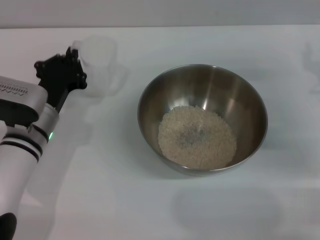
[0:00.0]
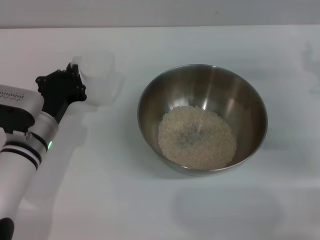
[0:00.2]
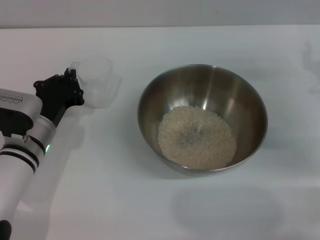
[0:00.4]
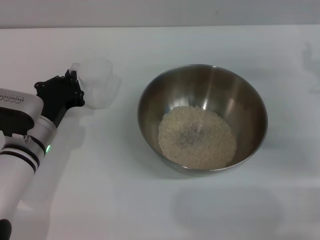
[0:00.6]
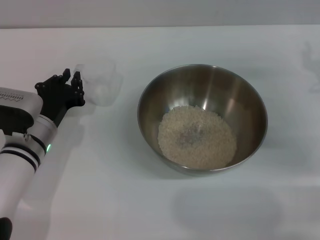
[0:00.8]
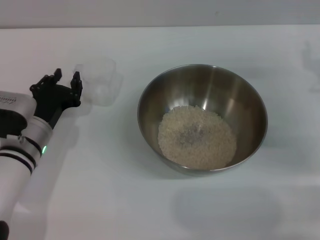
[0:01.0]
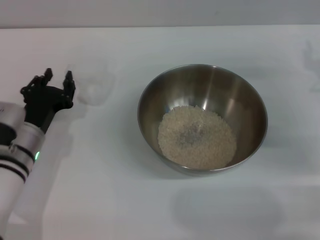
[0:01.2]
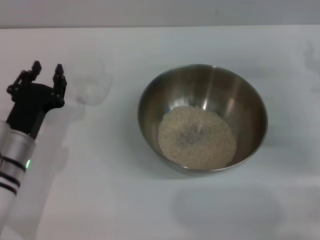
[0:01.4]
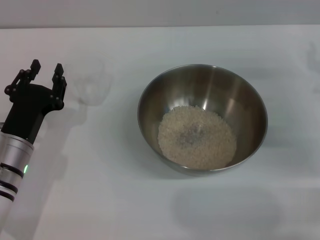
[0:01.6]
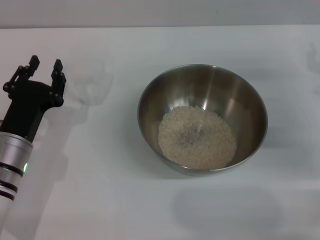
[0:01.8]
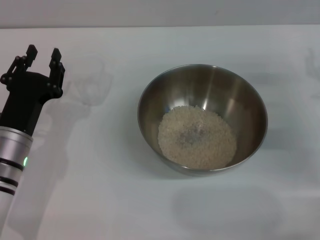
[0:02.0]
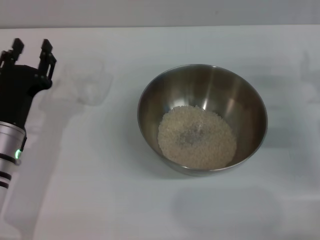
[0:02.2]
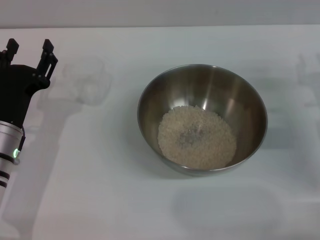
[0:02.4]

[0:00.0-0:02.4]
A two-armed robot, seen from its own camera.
Task of the whole recording: Place the bowl in the middle of the table with one hand and pour the rice from the grain cup into it with the other hand.
Step, 0:00.0 to 0:01.4: Place the cup on the table with the left gripper.
0:00.0 to 0:01.2: The left gripper opens.
0:01.2 to 0:02.4: The grippers move only a little.
